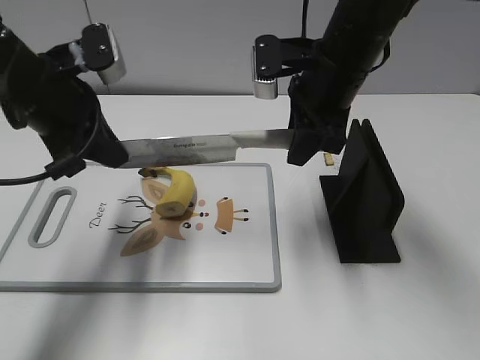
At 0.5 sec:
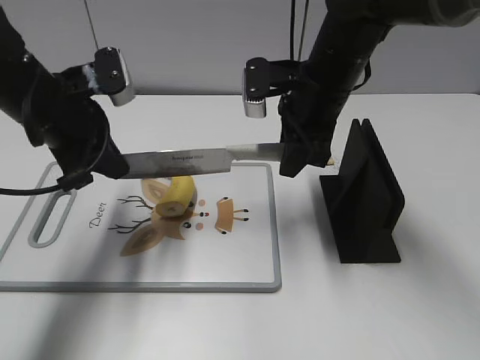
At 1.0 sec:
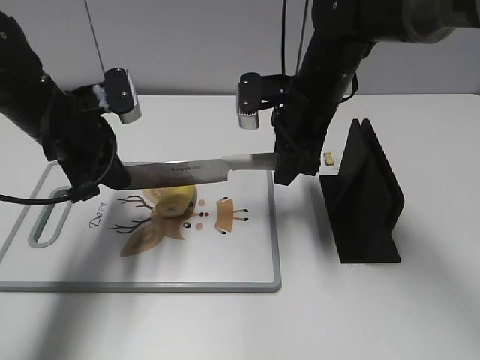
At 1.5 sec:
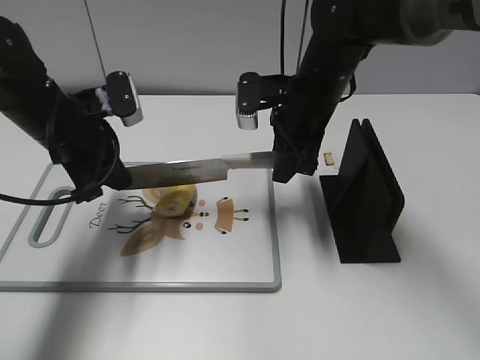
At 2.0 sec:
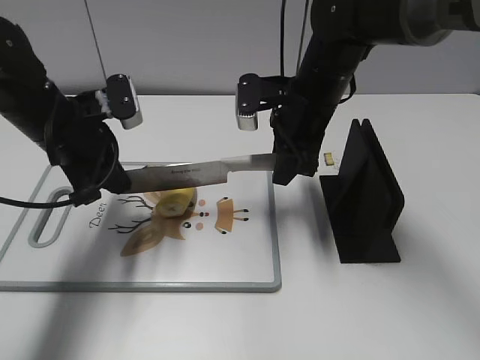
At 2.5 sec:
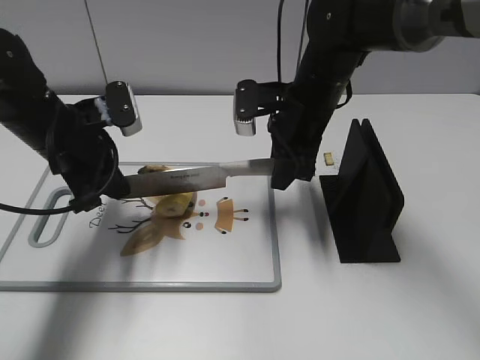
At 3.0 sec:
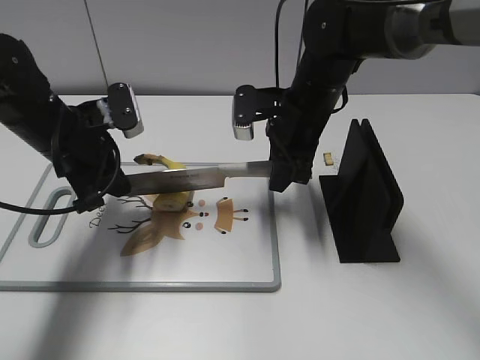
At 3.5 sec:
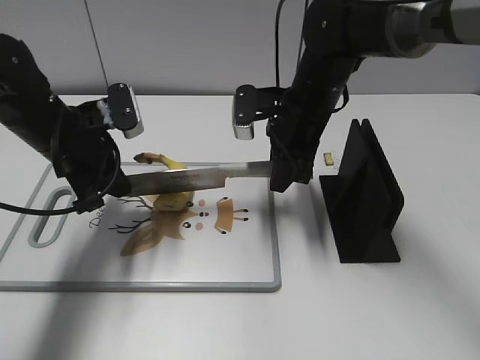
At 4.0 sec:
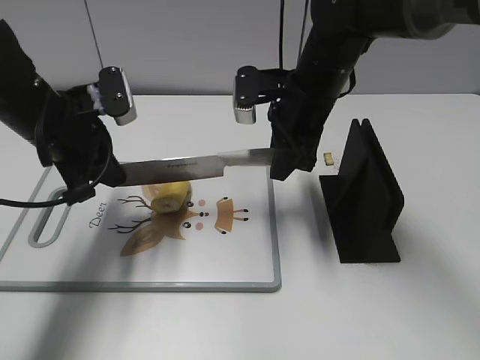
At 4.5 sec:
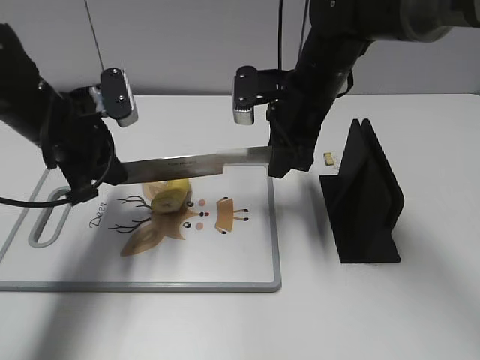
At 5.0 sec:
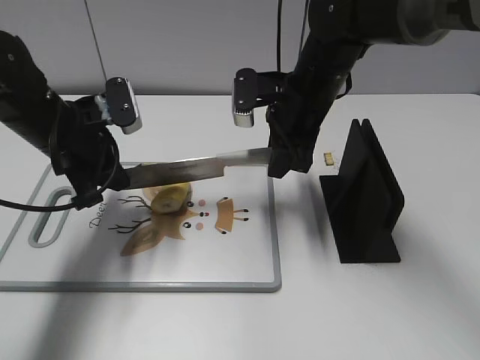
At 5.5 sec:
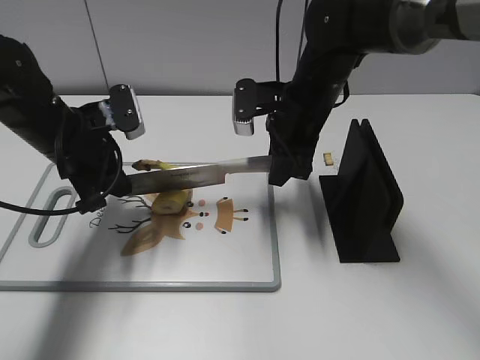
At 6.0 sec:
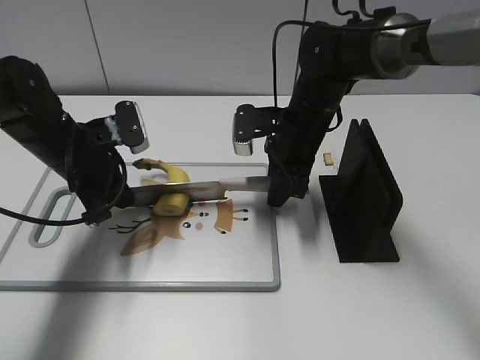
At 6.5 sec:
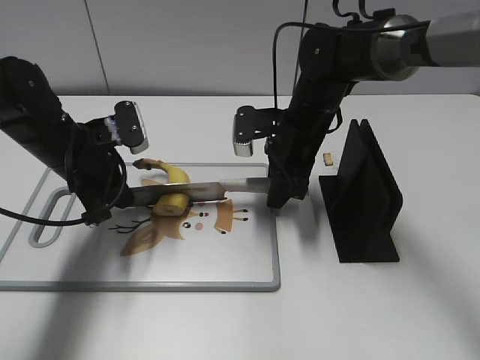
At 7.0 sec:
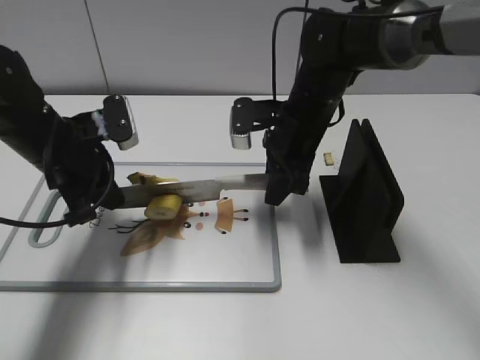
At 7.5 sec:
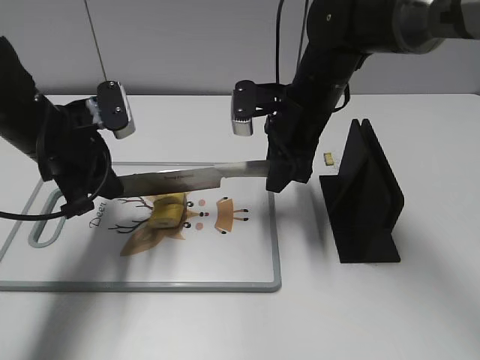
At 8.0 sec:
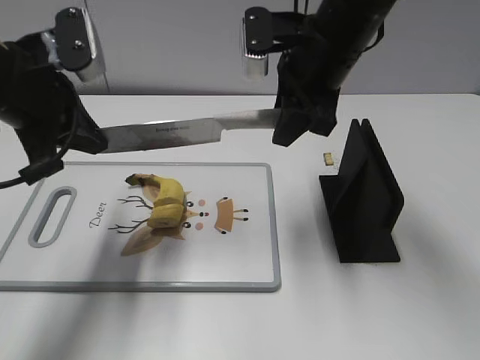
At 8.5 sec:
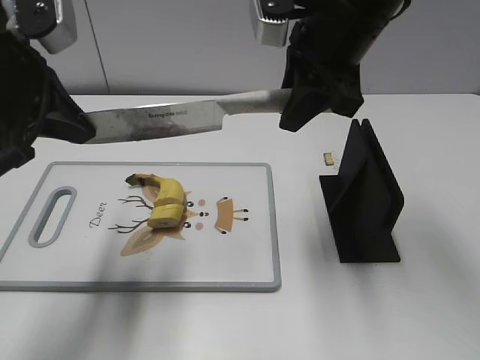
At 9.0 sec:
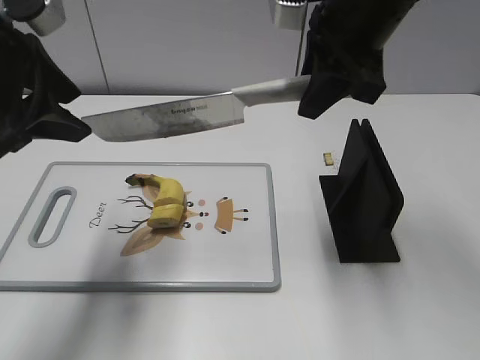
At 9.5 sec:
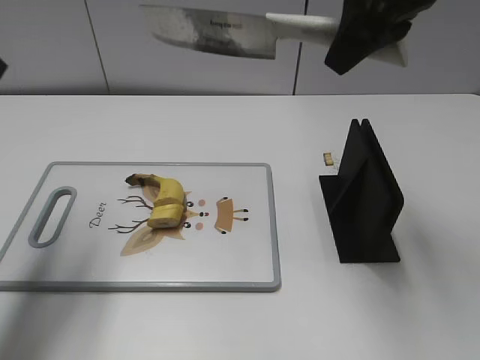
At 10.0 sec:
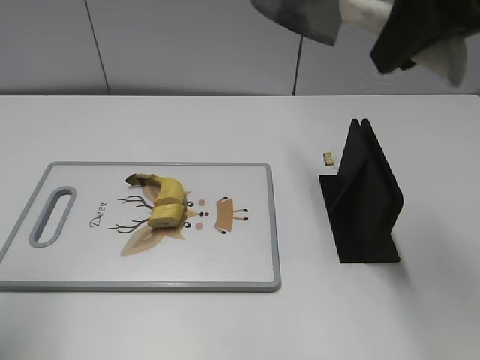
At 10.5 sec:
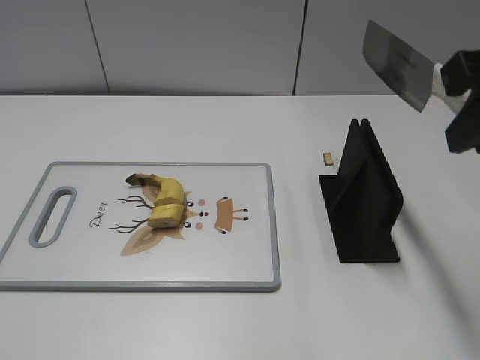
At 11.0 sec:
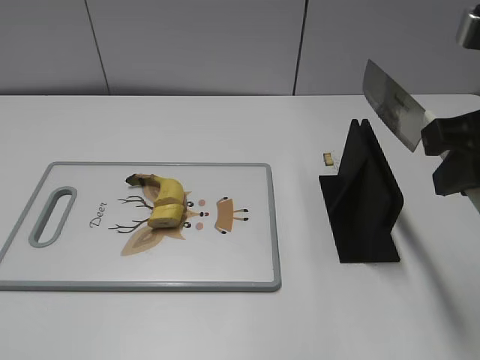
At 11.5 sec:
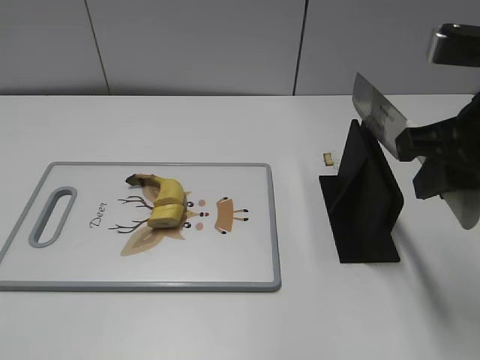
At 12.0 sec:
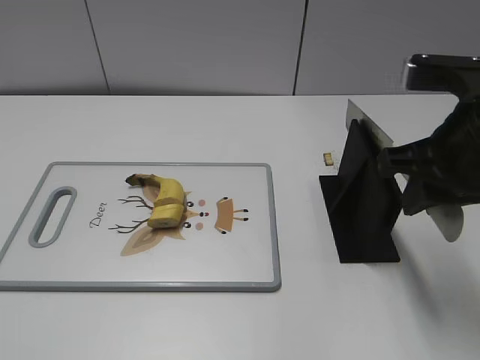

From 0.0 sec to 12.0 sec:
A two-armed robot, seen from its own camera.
Task of the whole recording: cut banana.
Step, from 0.0 sec to 2.0 sec: Lift the knife with your right hand.
Step, from 2.5 sec to 10.5 sec: Cut the banana with your right hand.
From 0.0 sec to 2.0 sec: The grippers both shift downward by some 5 cm.
From 2.0 sec to 4.0 sec: There are only small adjustments of the grippers.
From 4.0 sec to 6.0 sec: The two grippers go roughly 5 cm downward.
From 6.0 sec to 8.0 sec: Both grippers travel together upward, roughly 15 cm.
From 8.0 sec to 10.0 sec: The left gripper goes about 20 cm backward, to the left and upward, and opens up, while the right gripper heads upward, backward and to the right, covering about 20 cm.
From 10.0 sec to 12.0 sec: The left gripper is displaced backward by about 15 cm, while the right gripper travels downward by some 15 cm.

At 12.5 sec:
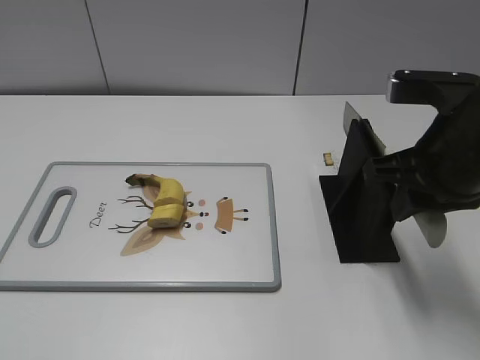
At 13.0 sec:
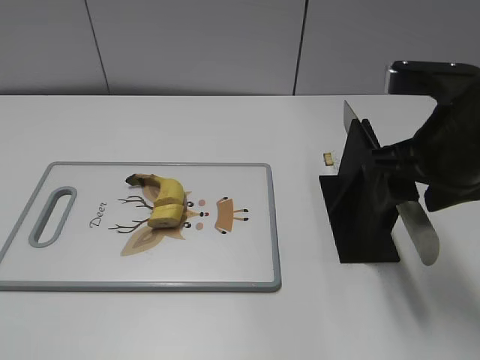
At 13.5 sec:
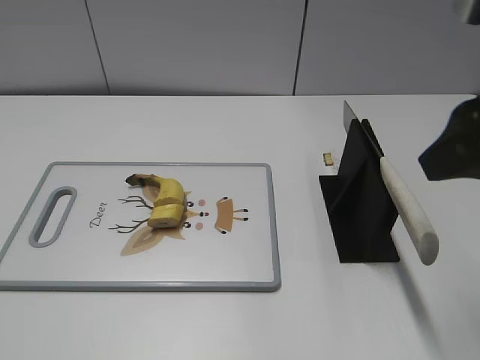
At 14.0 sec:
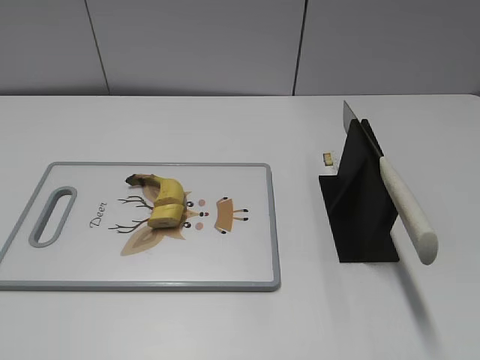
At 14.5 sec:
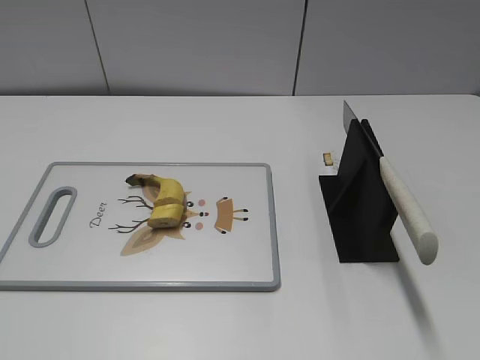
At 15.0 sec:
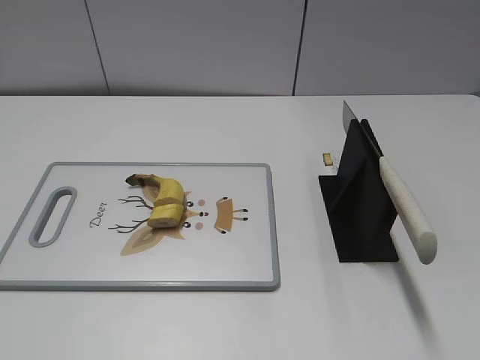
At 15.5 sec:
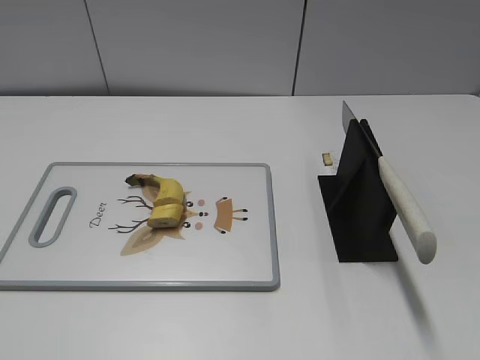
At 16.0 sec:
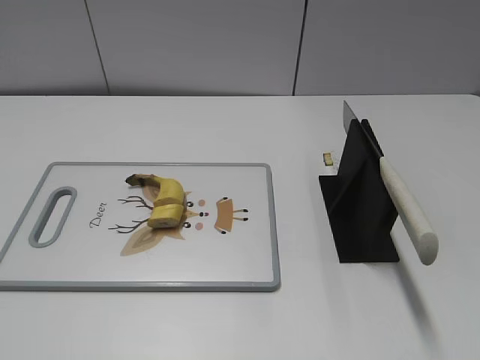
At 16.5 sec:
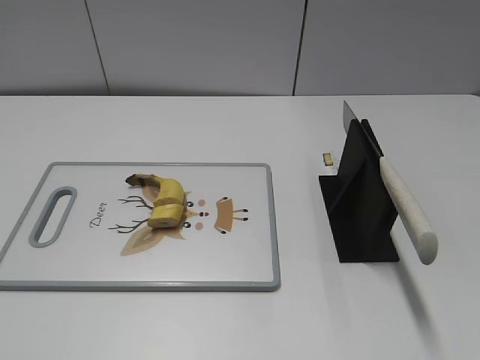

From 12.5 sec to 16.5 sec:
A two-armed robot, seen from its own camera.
Task of the whole recording: cut banana.
Step, from 13.5 sec to 16.5 sec: Place the knife on the storage rack with your right hand.
From 12.5 sec to 14.5 sec: The right gripper shifts some 25 cm backward and to the right, and opens.
